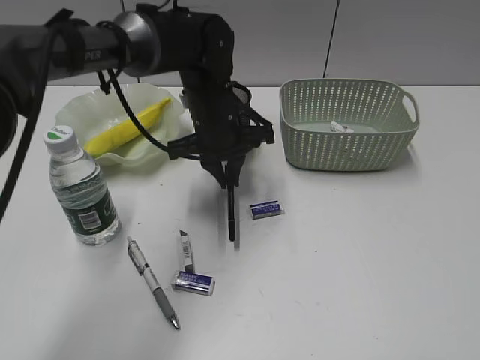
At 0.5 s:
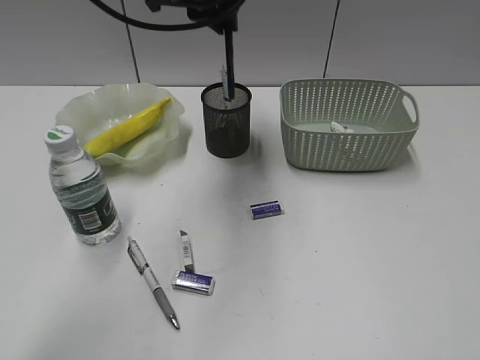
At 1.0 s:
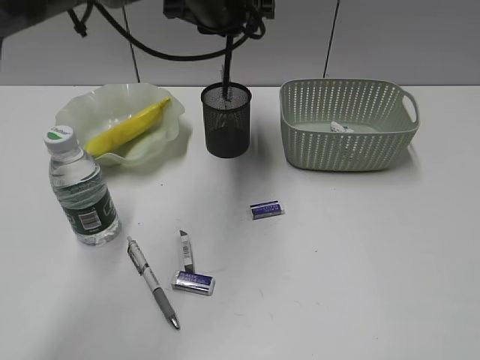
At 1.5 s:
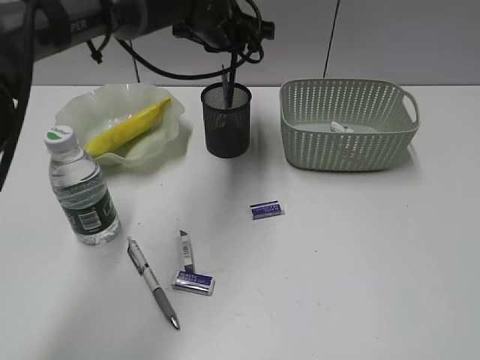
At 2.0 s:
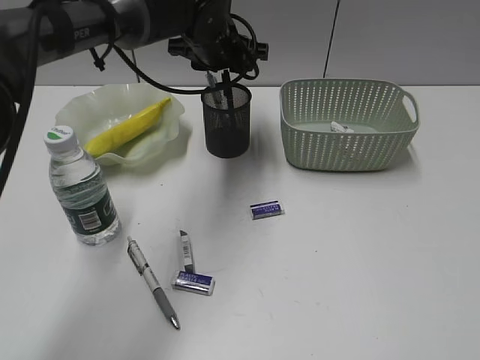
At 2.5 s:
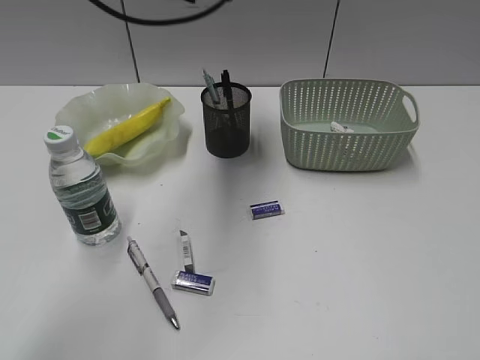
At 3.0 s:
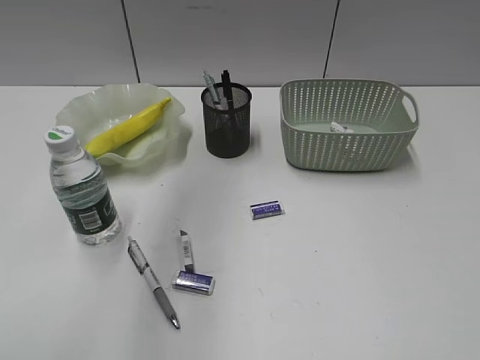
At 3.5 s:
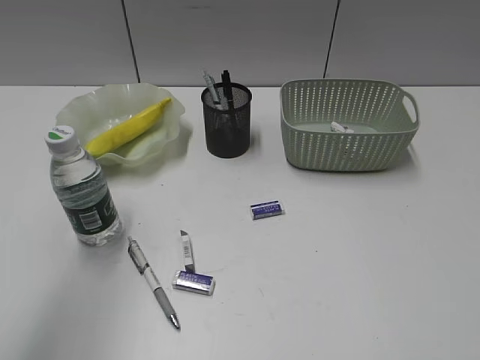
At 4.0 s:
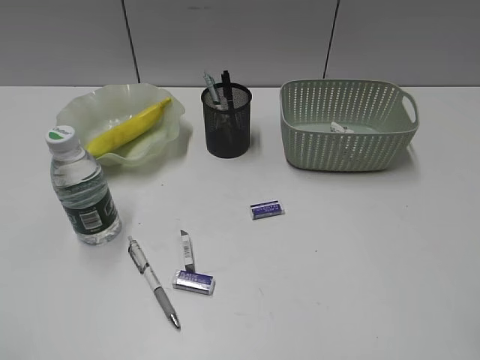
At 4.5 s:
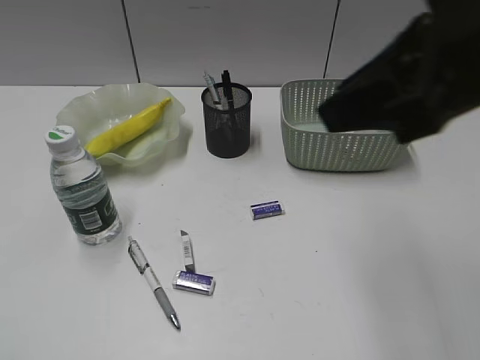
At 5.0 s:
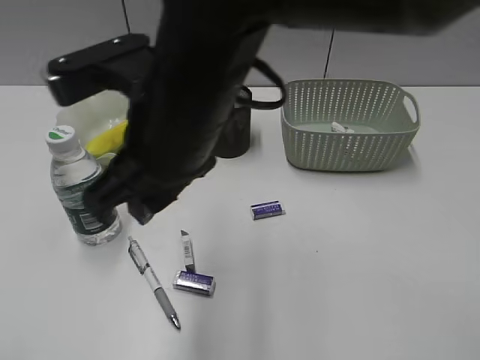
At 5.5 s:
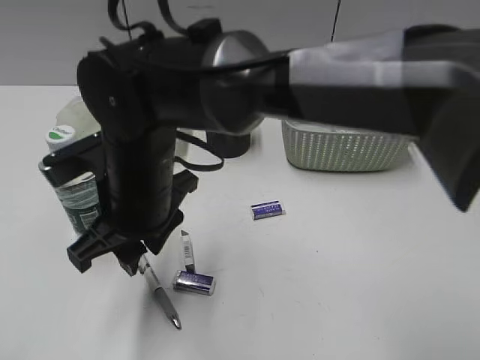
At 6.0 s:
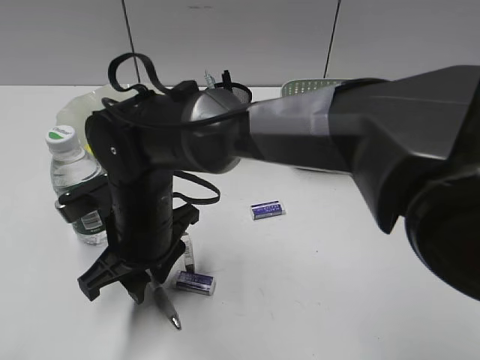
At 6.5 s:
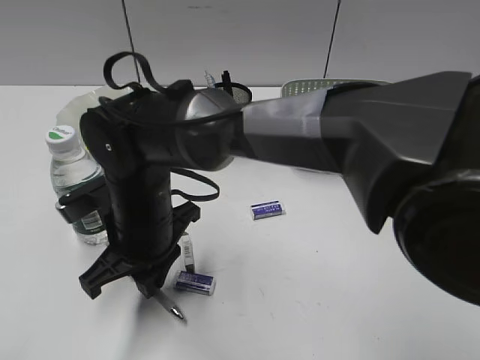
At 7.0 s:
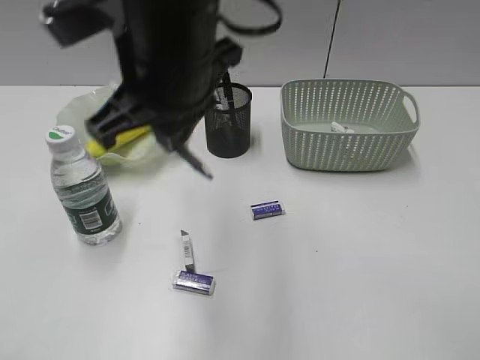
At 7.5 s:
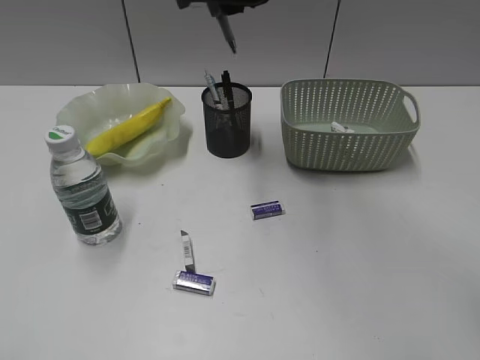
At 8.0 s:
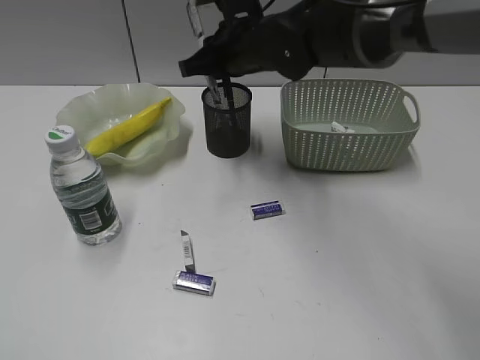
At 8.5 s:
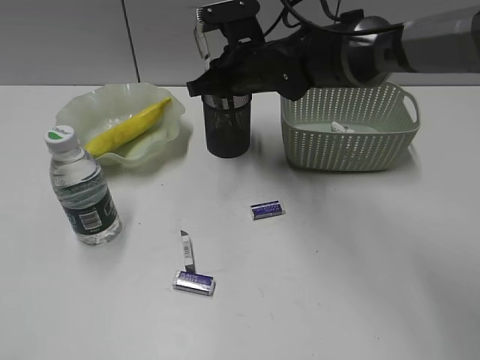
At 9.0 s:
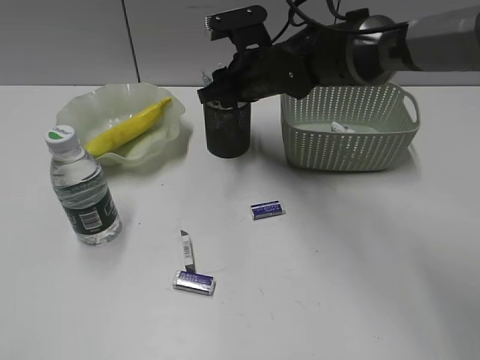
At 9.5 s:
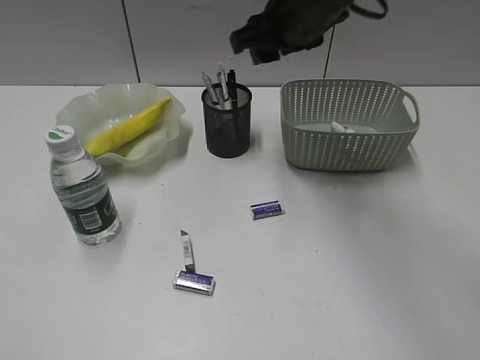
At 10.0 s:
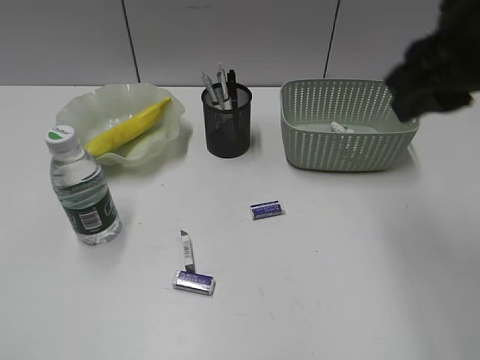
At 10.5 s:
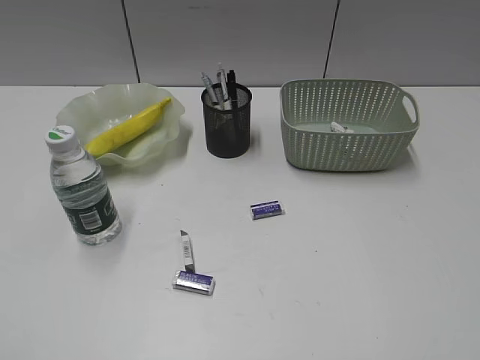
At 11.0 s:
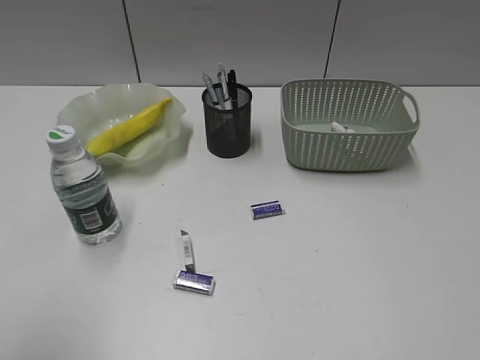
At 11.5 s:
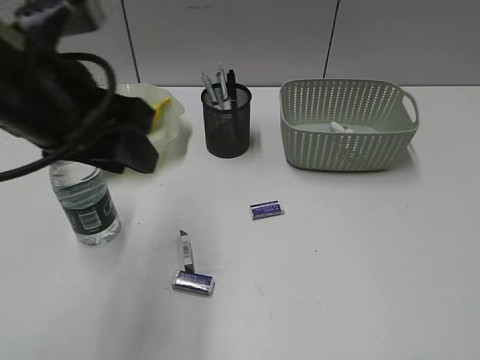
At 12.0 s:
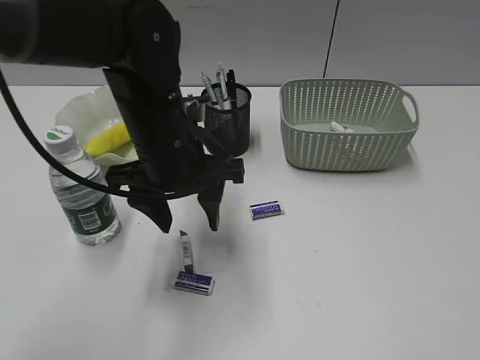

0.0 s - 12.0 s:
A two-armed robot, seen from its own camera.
Step, 0.0 s - 2.0 s: Place the black pen in pen holder with left gripper.
Step, 2.5 s - 6.0 s: Grasp the gray pen with right gripper.
Step, 6.5 s - 8.5 s: Place the gray pen in pen holder with right gripper.
0.0 s - 2.0 s: The left gripper moves forward and upward, approximately 10 cm, and opens.
2.0 s - 4.0 s: The right gripper is displaced forward by approximately 5 cm, while the left gripper shifts approximately 50 cm backward and to the left.
4.0 s - 6.0 s: The right gripper travels to the left, downward and forward by some 50 cm.
6.0 s - 8.0 s: The right gripper shifts some 25 cm forward, to the right and upward, and closes up.
8.0 s - 10.0 s: The right gripper travels backward, to the right and upward by approximately 25 cm, and opens.
10.0 s - 12.0 s: The right gripper heads backward and to the right, covering about 30 cm; the left gripper shifts about 40 cm forward and to the right, and opens up.

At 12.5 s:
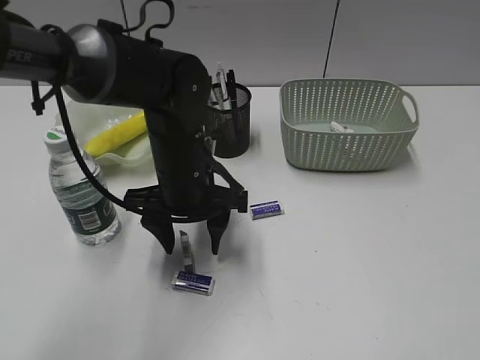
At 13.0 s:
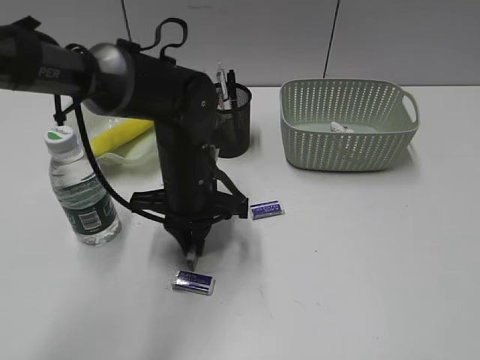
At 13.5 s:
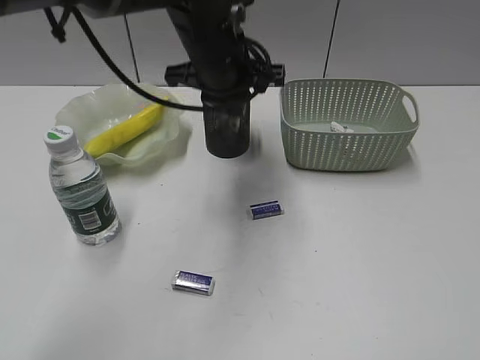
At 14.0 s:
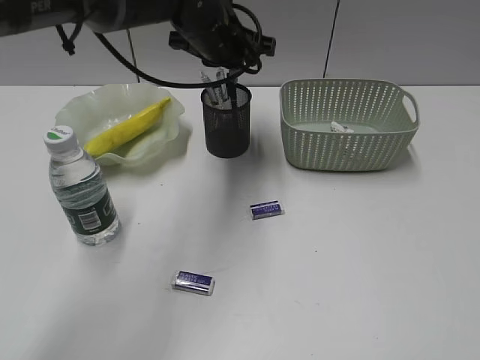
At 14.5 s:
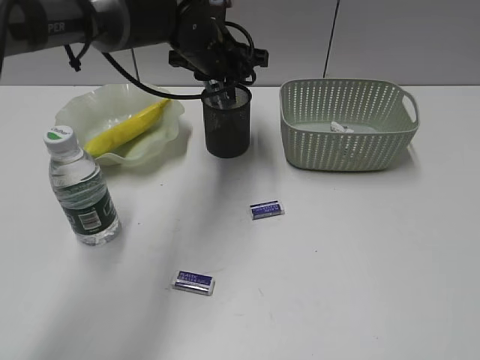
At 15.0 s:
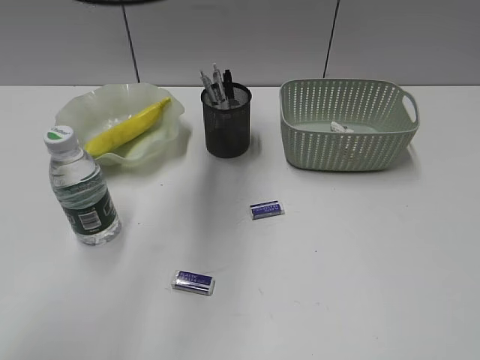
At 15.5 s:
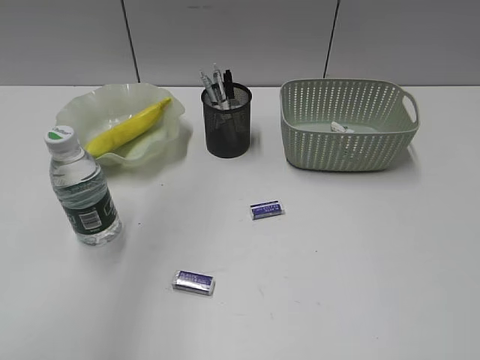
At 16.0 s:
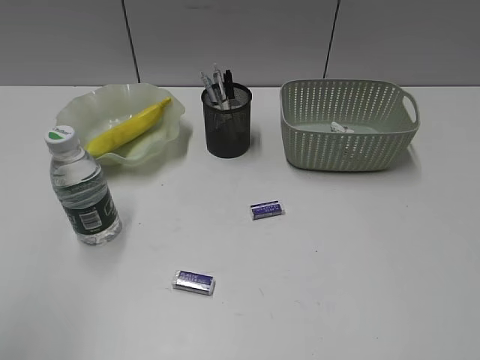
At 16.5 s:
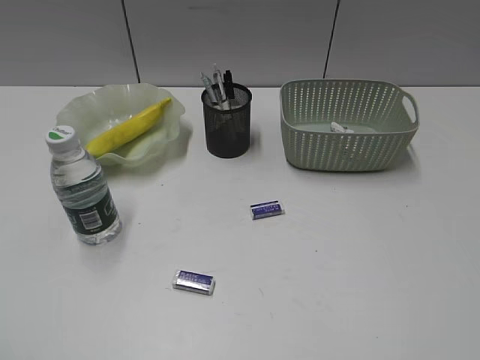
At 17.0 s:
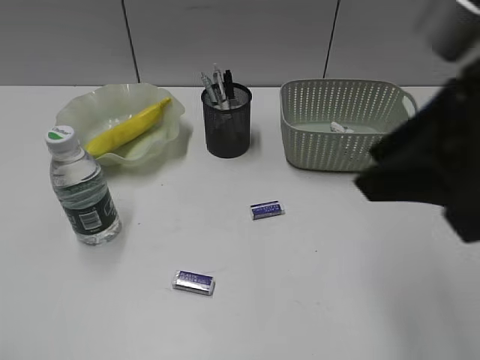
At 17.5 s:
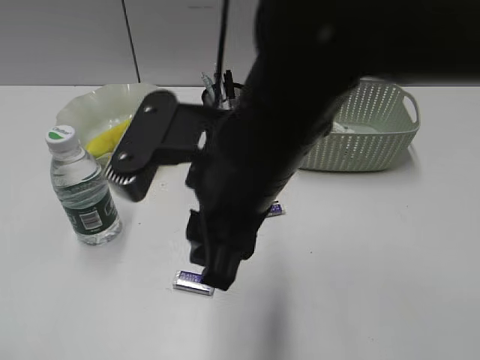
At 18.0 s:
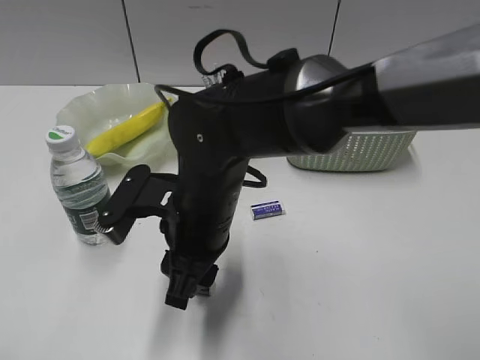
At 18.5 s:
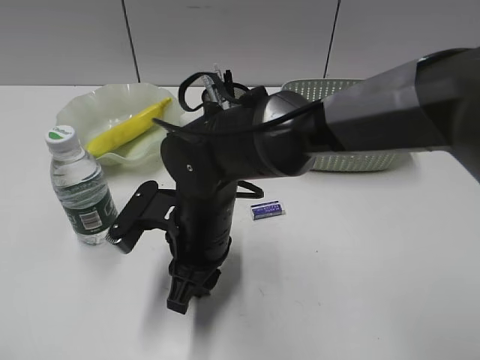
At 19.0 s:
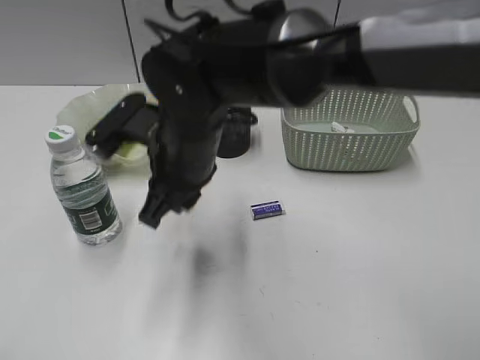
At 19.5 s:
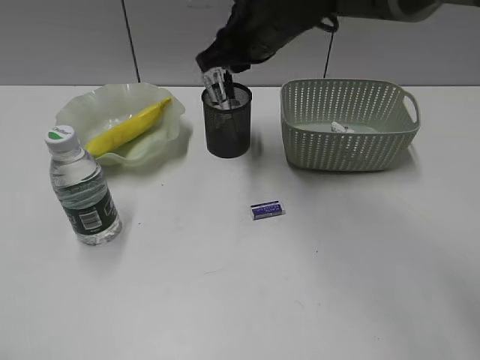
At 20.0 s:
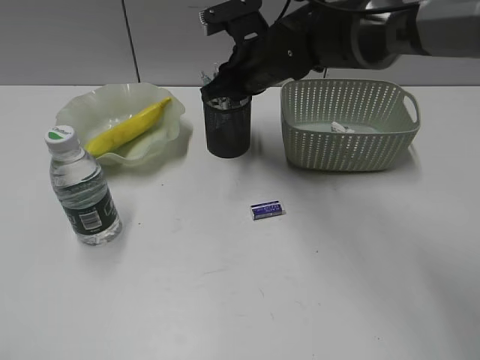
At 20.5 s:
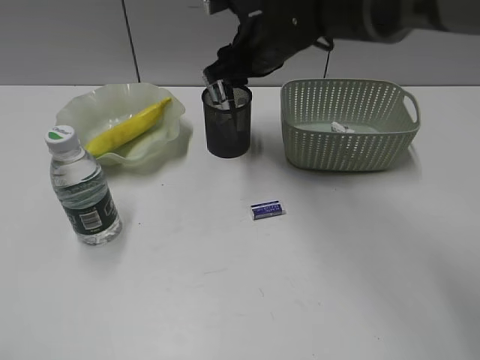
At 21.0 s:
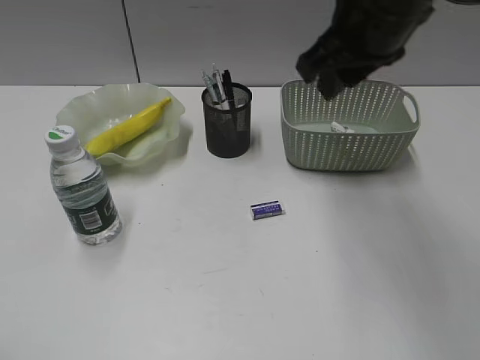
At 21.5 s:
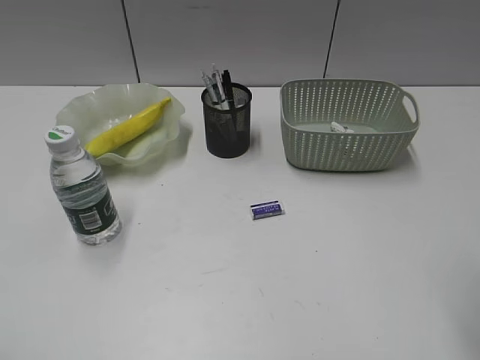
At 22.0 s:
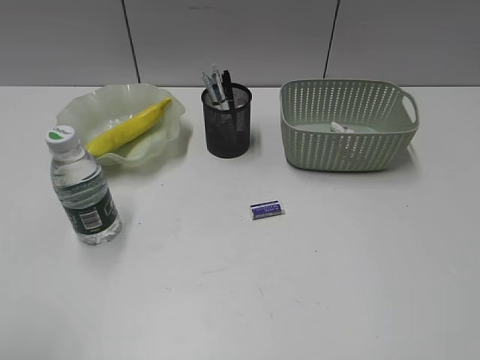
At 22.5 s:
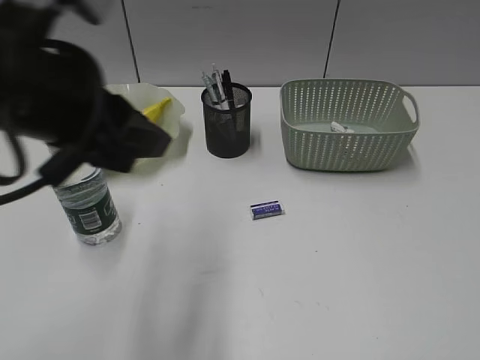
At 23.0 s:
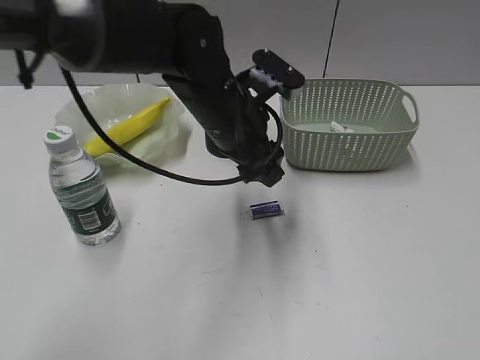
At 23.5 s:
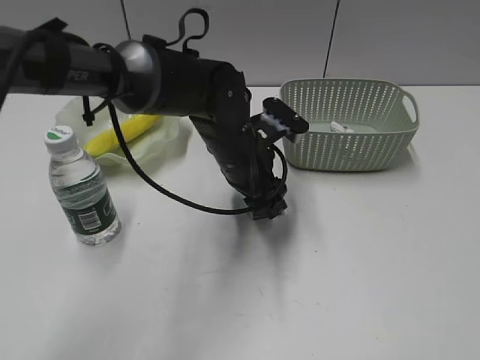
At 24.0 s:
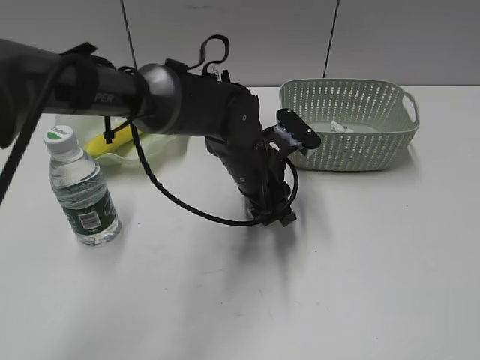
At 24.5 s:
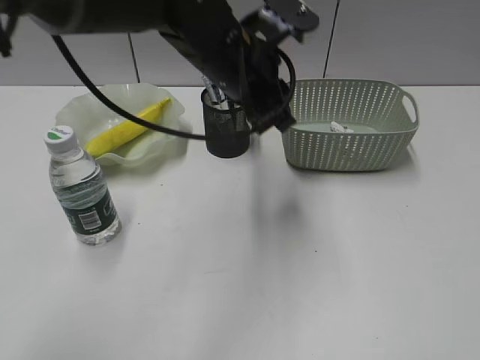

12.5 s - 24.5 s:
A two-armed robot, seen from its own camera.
Step, 13.5 s - 14.5 s: Place the eraser in pen holder with left gripper.
Step, 15.0 s - 18.5 s: Grasp the eraser with right gripper.
Step, 19.0 s - 20.0 s: Place the eraser in pen holder with right gripper.
Step, 20.5 s - 24.0 s: Grasp the eraser with left gripper.
12.5 s - 14.5 s: The left gripper is displaced forward and upward by about 15 cm, and closes.
14.5 s - 16.5 s: The left gripper heads backward and to the left, covering some 50 cm.
16.5 s - 18.5 s: The right gripper goes about 50 cm to the left, forward and downward.
18.5 s - 20.5 s: The right gripper moves forward and upward, some 20 cm.
20.5 s - 22.5 s: The right gripper moves backward and to the right, roughly 50 cm; the left gripper moves forward and to the right, roughly 25 cm.
22.5 s - 24.5 s: The left gripper shifts about 20 cm to the right and forward, and moves roughly 20 cm downward and comes back.

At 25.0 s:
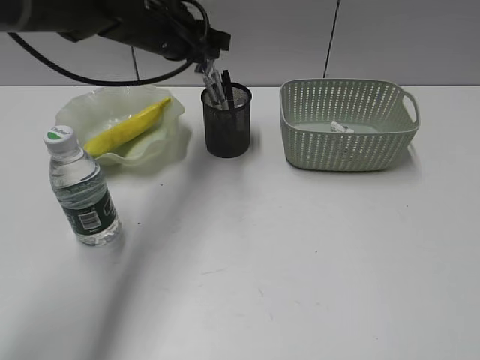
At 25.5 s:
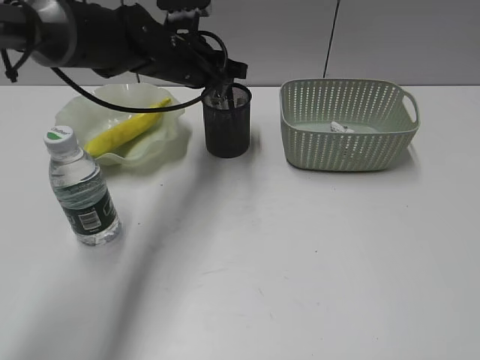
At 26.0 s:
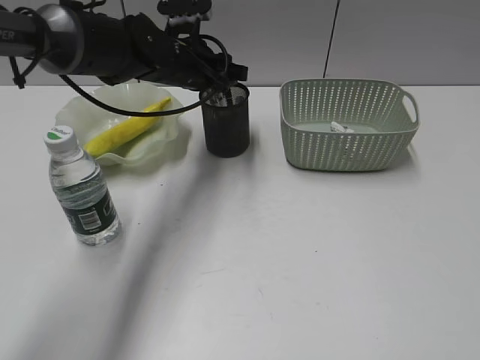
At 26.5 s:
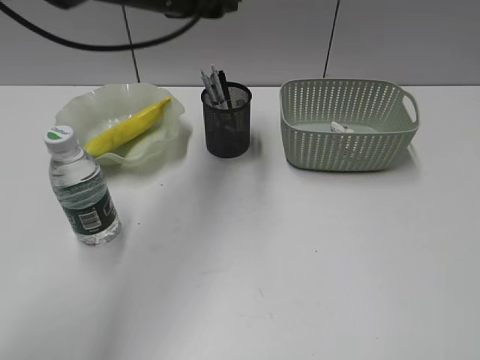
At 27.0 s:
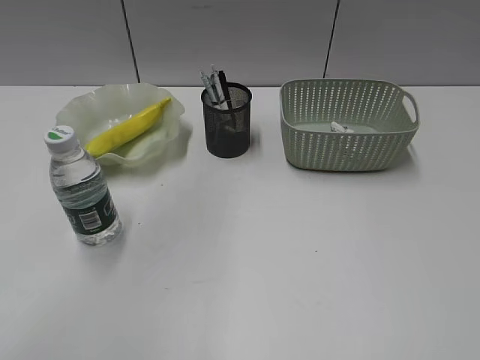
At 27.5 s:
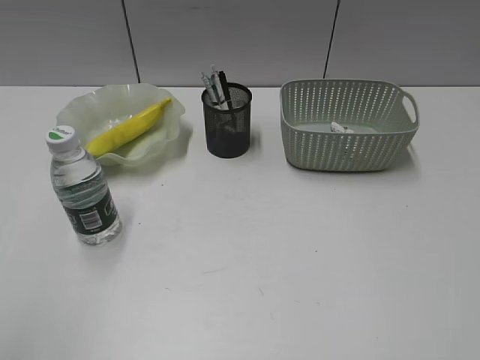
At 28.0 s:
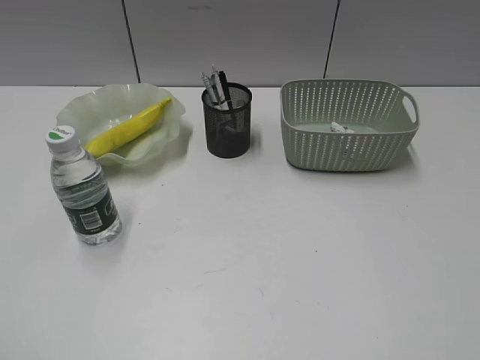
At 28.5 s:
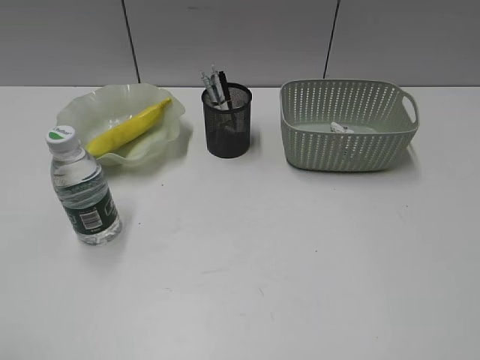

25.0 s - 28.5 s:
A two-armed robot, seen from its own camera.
25.0 s - 27.0 s: The left gripper heads upward and backward, covering approximately 30 cm, and opens its fingers.
27.0 s - 28.5 s: The left gripper heads backward, downward and to the left, covering approximately 35 cm.
